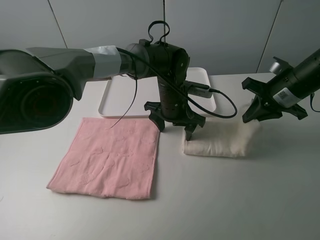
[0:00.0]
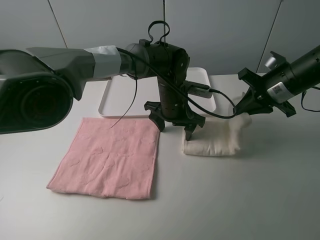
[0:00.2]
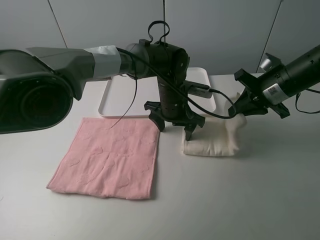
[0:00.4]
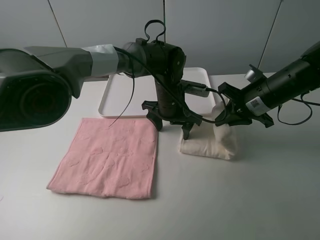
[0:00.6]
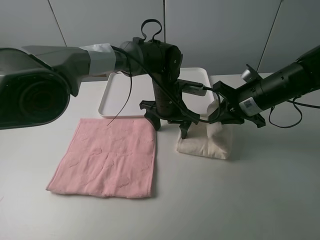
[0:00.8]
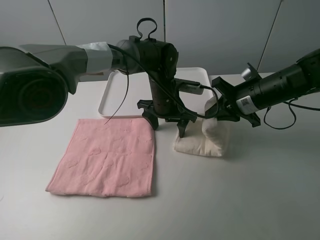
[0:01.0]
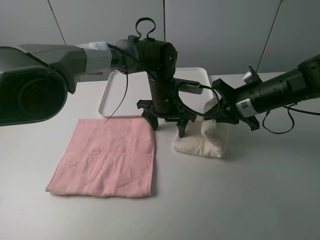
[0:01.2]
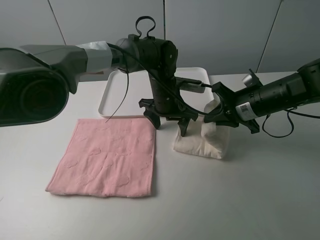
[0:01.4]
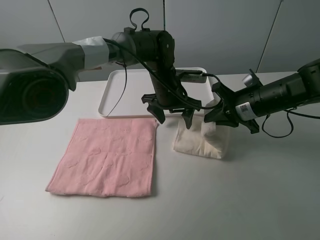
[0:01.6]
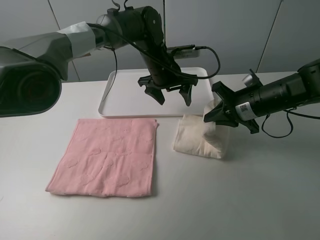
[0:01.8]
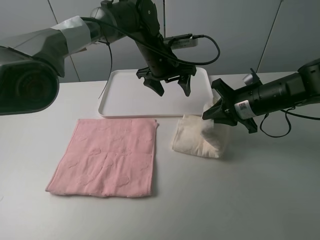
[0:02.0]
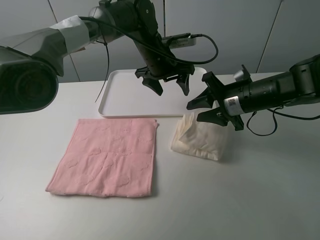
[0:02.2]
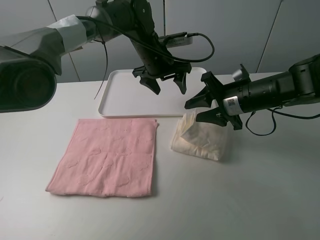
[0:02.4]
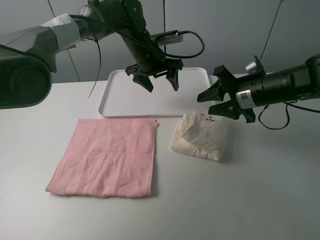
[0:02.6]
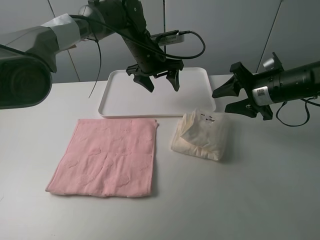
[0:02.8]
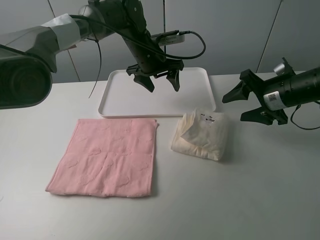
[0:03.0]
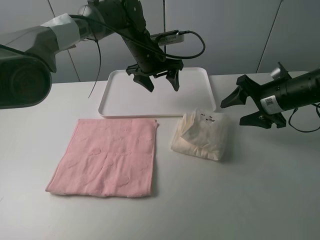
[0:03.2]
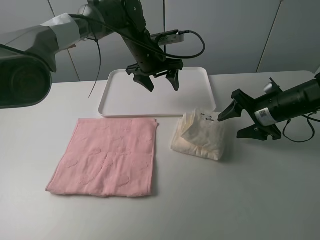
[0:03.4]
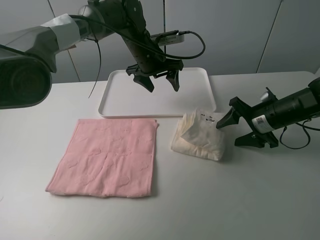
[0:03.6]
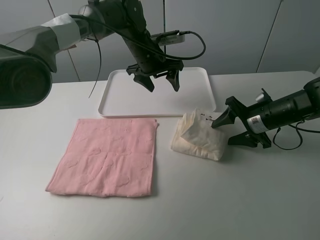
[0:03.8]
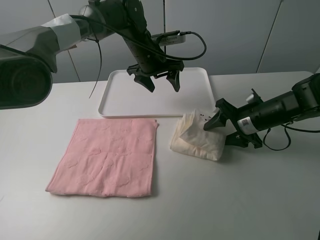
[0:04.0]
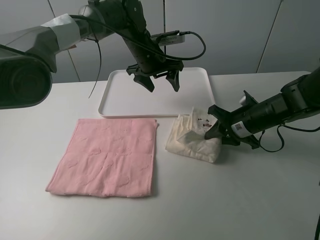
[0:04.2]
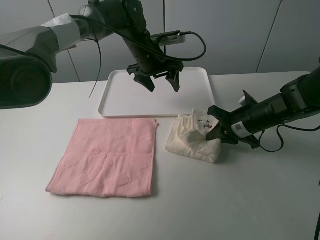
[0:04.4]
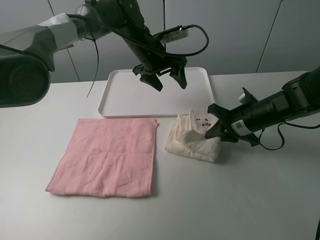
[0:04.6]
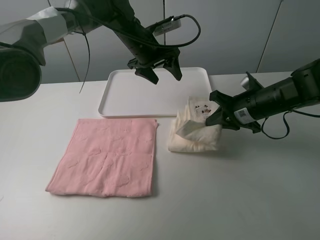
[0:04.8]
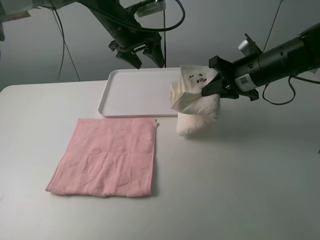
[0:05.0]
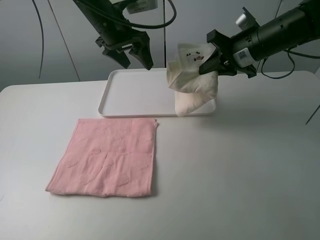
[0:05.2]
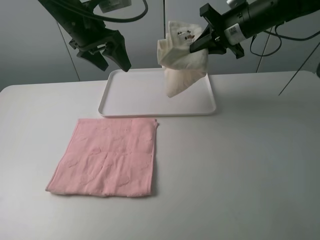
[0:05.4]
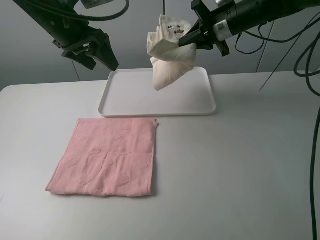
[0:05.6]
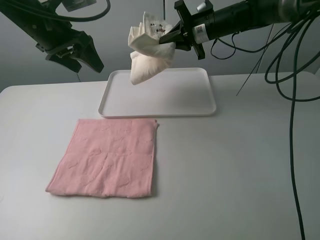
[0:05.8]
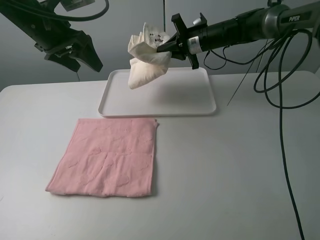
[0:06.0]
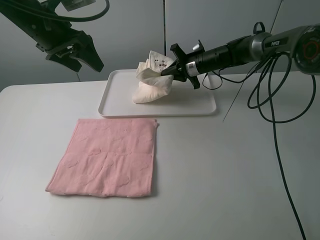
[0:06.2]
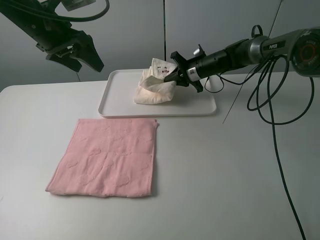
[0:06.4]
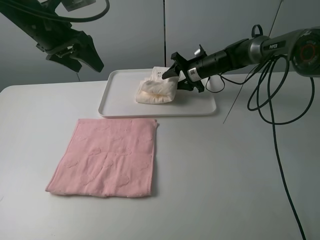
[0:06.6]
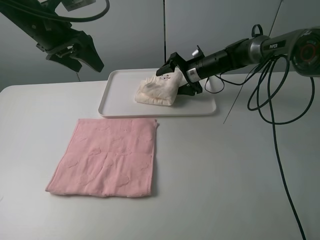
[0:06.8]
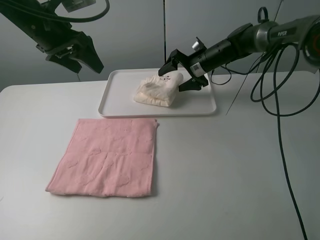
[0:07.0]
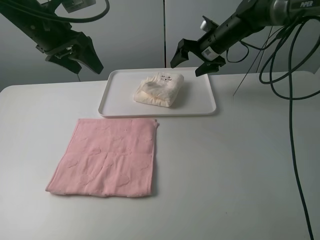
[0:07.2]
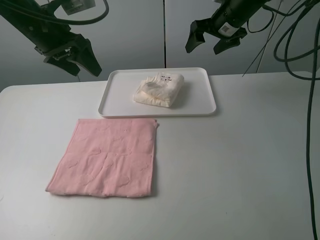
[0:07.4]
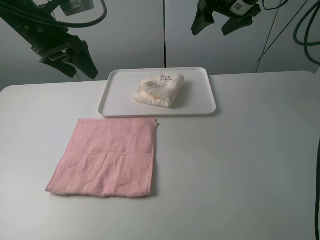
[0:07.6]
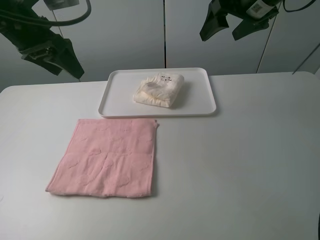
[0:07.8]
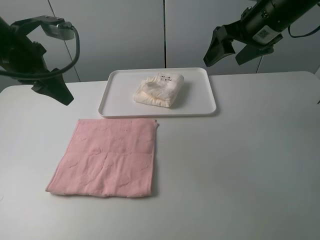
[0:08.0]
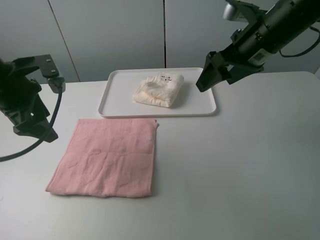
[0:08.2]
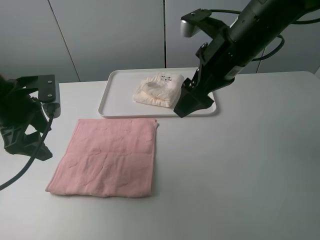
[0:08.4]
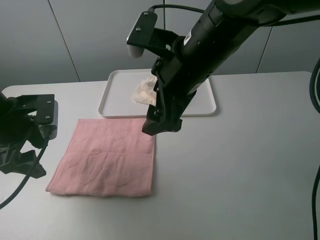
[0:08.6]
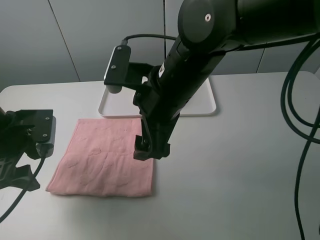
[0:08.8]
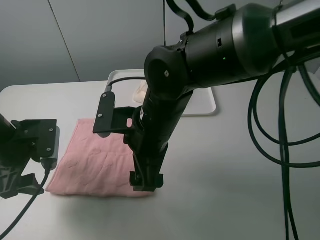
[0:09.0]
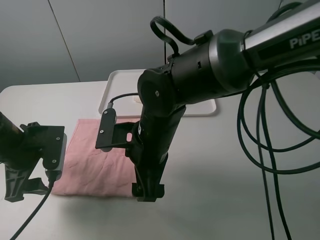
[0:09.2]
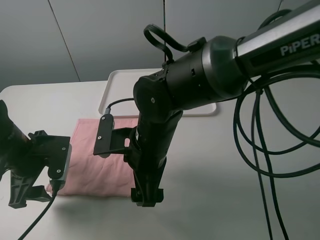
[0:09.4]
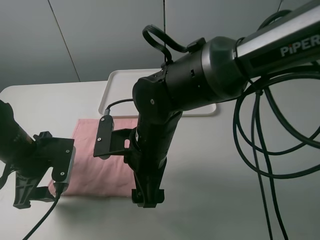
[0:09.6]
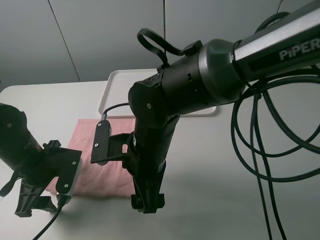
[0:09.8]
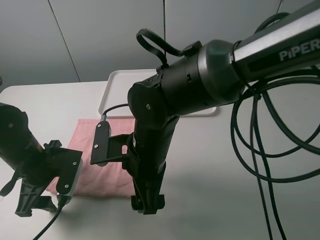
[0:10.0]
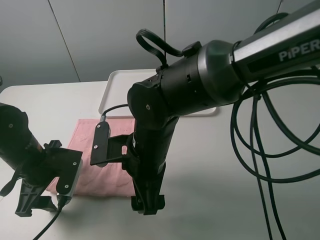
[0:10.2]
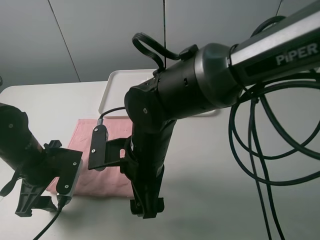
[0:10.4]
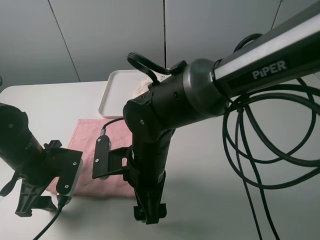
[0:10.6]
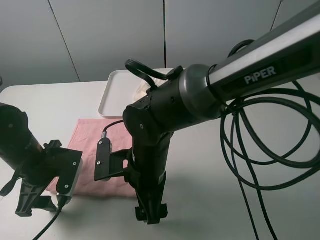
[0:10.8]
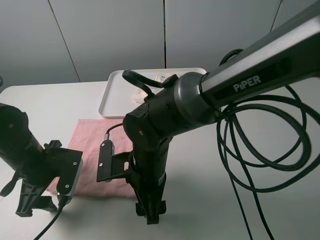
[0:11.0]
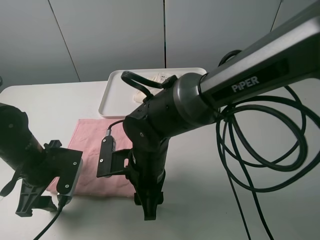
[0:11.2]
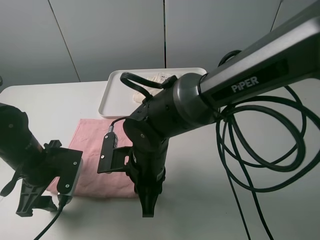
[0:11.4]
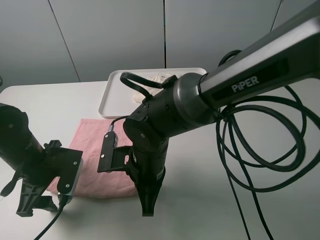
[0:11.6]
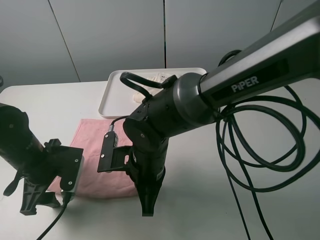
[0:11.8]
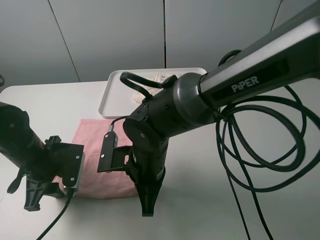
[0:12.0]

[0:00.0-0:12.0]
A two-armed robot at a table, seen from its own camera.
Task of the whole recording: fold one of the towels by two grippers and place it on the tray,then fold another towel by two grippers and place it on the folded towel.
Step, 0.0 to 2.4 s: Fold the white towel from right to left with right gripper.
Step, 2.6 to 4.4 s: Grasp the white towel with the right gripper.
Step, 4.6 to 7.2 s: Move the white towel to the plate with the right gripper.
0.0 to 1.6 s: The right gripper shifts roughly 5 cm to the left.
1.6 to 3.0 s: The right gripper travels to the right by approximately 5 cm, and opens up. Meanwhile the left gripper heads forward and upward, covering approximately 5 cm.
3.0 to 4.4 s: The right gripper is displaced downward by approximately 10 cm, and closes its fingers.
4.4 to 6.0 s: The right gripper moves forward, upward and to the left, roughly 20 cm. Meanwhile the left gripper moves to the left, upward and backward, some 25 cm.
6.0 to 7.6 s: The right gripper is displaced upward and to the right by approximately 15 cm, and opens.
7.6 to 9.0 s: The left gripper is displaced backward and downward by roughly 20 cm. Meanwhile the right gripper travels backward, to the left and downward by roughly 35 cm.
9.0 to 10.4 s: The left gripper moves downward, approximately 5 cm.
10.4 to 12.0 s: The right gripper closes up. Meanwhile the left gripper closes.

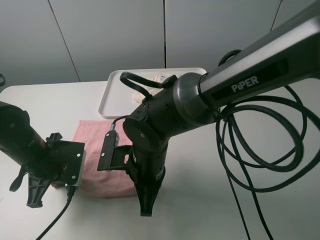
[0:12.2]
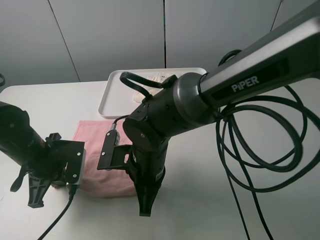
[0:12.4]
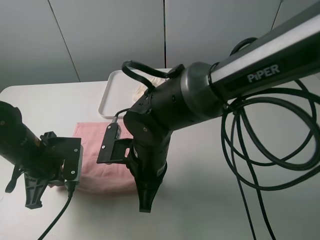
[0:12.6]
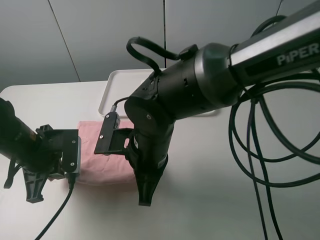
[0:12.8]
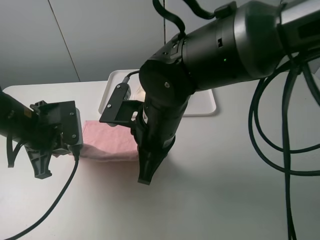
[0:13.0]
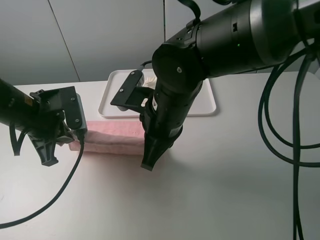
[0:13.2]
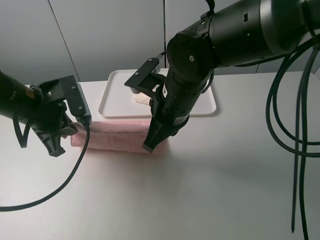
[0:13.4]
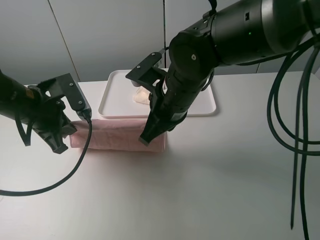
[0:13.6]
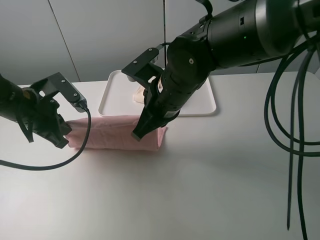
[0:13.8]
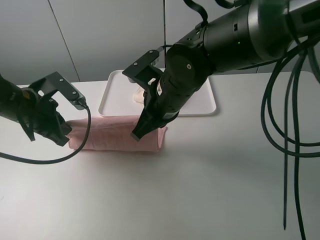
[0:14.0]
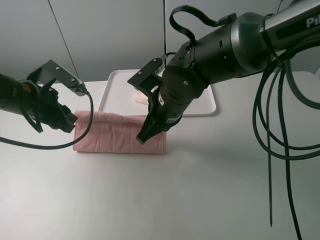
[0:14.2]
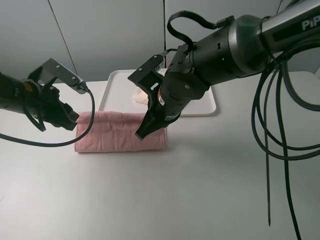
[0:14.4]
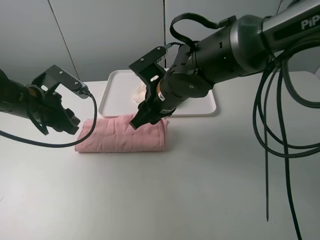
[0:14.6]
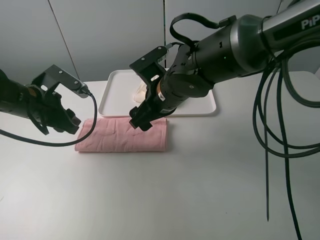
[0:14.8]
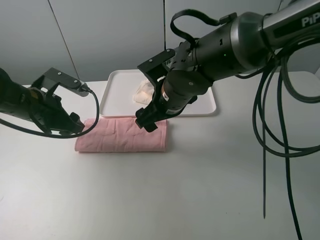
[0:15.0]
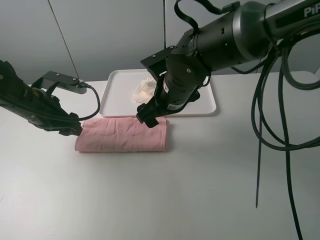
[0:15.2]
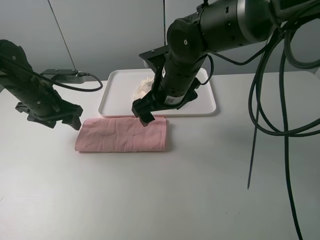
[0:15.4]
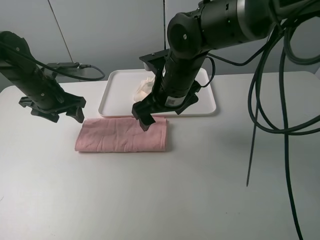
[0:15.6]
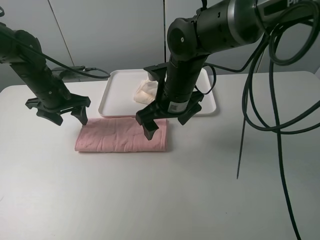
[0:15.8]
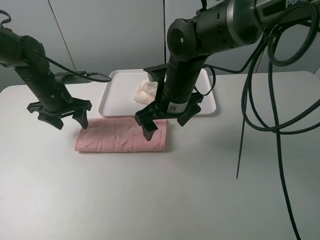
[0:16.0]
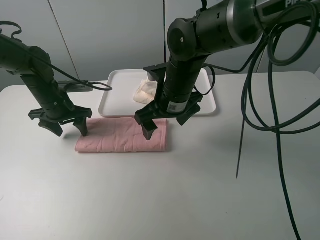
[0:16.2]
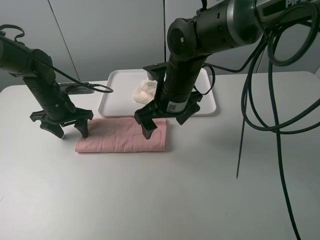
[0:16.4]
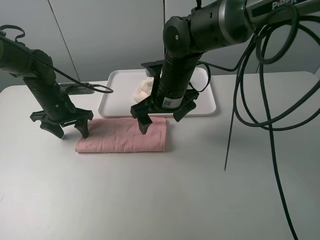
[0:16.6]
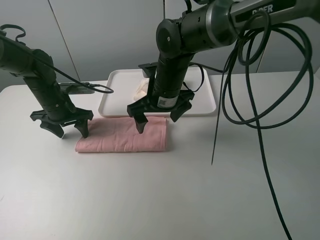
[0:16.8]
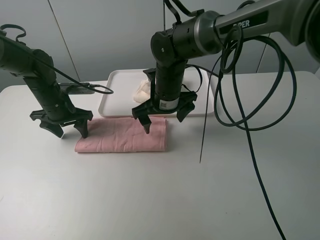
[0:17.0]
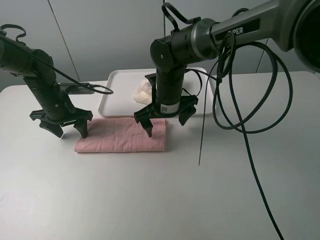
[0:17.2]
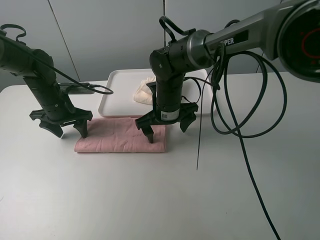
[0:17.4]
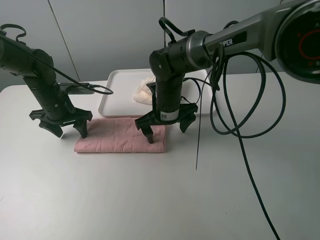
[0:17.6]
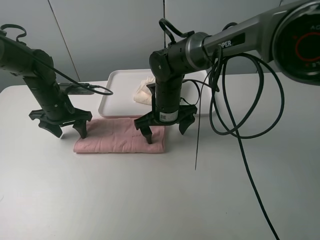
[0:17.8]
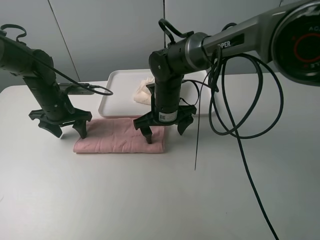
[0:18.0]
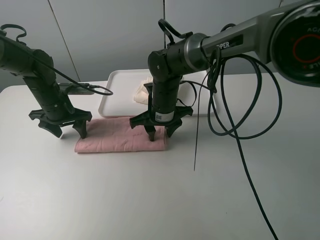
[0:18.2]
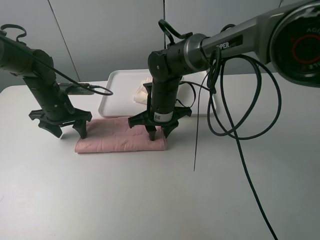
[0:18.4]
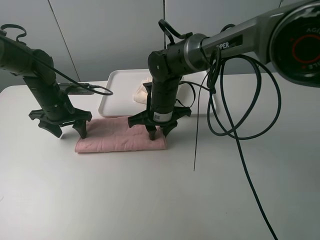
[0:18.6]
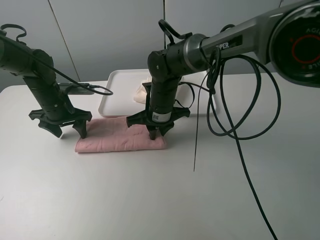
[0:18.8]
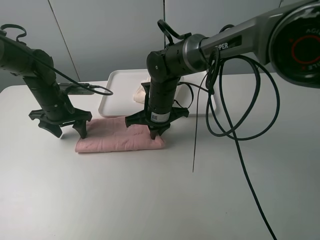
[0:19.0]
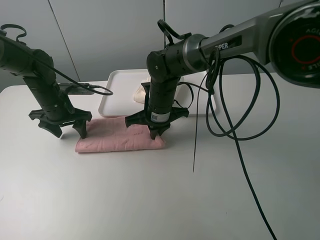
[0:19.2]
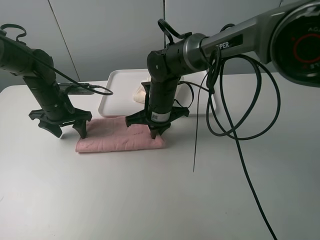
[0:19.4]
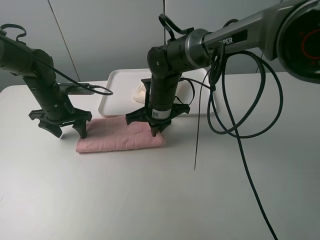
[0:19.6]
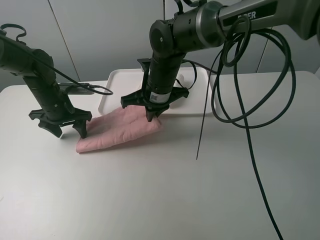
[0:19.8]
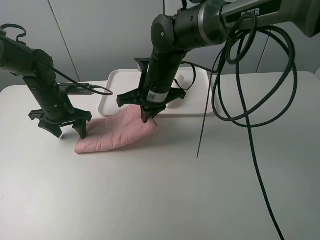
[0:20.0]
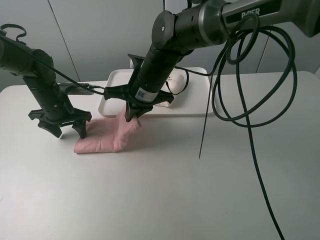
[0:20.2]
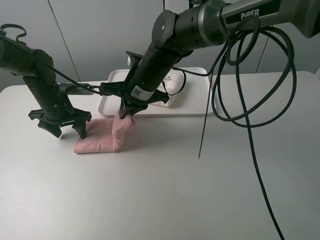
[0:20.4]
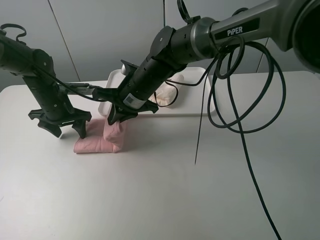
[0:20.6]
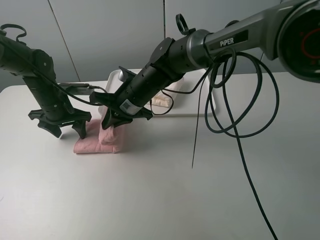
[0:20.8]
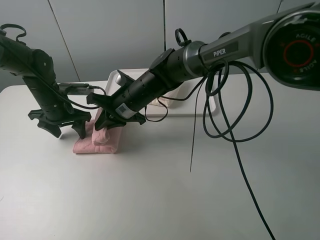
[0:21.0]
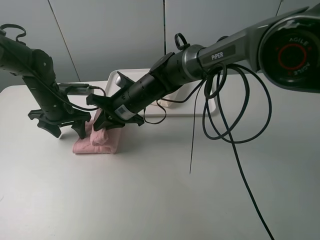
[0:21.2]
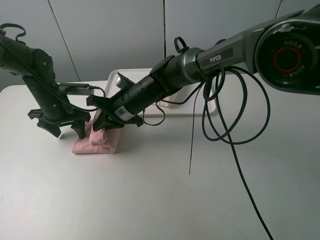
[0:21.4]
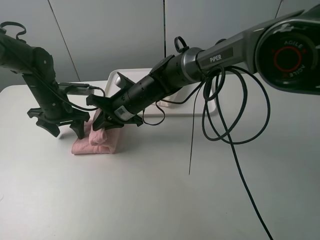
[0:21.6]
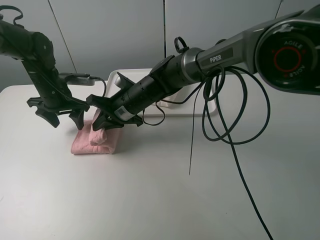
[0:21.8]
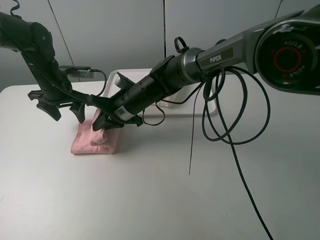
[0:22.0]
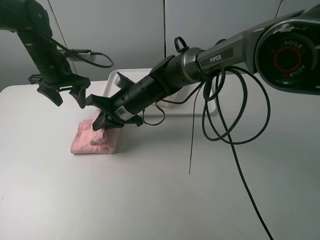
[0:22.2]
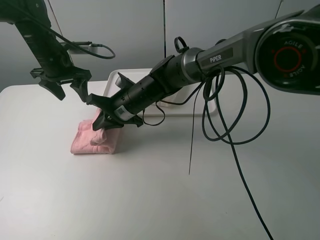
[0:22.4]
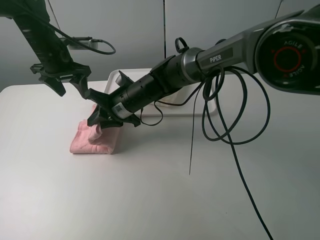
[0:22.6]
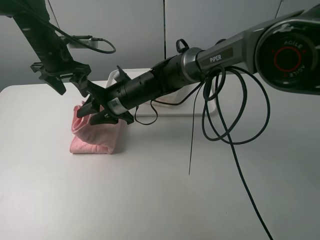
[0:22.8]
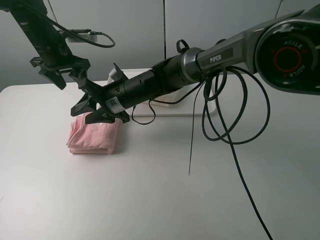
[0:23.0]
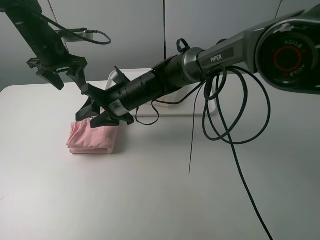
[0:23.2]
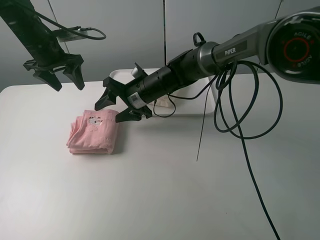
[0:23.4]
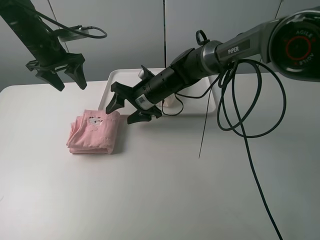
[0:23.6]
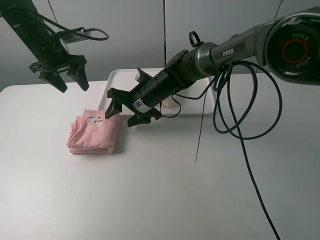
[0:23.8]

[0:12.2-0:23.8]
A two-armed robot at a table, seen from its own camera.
Task of the whole recording: fold one of the towels by two grippers and place it on the tray,then fold another towel by two grippers and place it on the folded towel.
Step, 12.6 to 15.0 s: Fold the pink towel upwards with the left gripper.
Step, 15.2 to 16.8 s: Press the pink towel with the left gripper.
Step, 17.0 to 19.0 s: Grasp the pink towel with the right gripper.
Step, 19.2 to 23.0 s: Fold the pink towel from right to left with right gripper.
12.2 to 13.6 s: The right gripper heads upward and forward, covering about 10 cm; the left gripper shifts approximately 10 cm upward.
13.6 to 15.0 s: The left gripper opens up. Meanwhile the right gripper opens.
15.0 to 16.6 s: The left gripper shifts about 10 cm forward.
16.6 to 18.0 s: The right gripper shifts some 5 cm downward.
18.0 to 19.4 s: The right gripper closes up.
19.4 to 21.0 s: The right gripper goes roughly 5 cm to the left.
21.0 to 22.4 s: The left gripper moves upward and forward, approximately 10 cm.
22.4 to 23.8 s: The right gripper opens.
